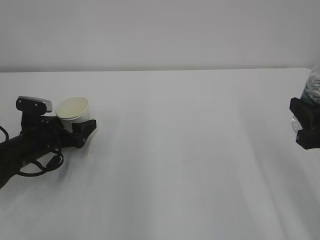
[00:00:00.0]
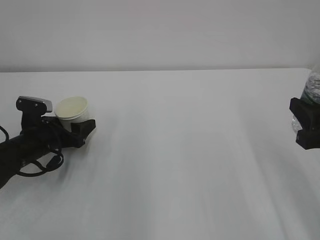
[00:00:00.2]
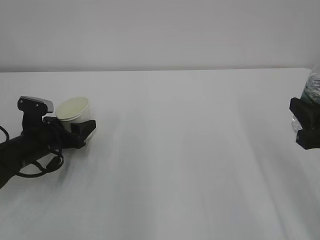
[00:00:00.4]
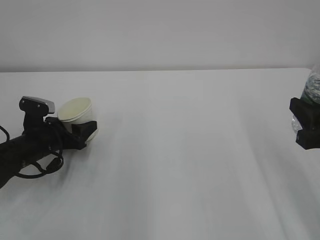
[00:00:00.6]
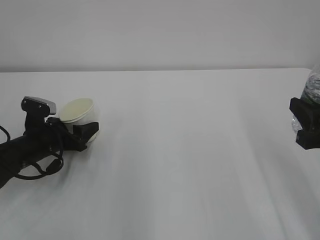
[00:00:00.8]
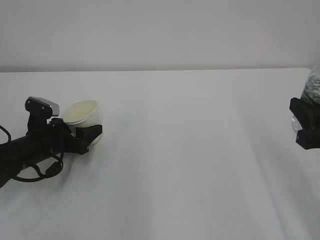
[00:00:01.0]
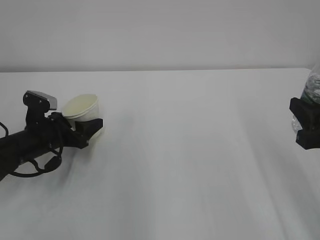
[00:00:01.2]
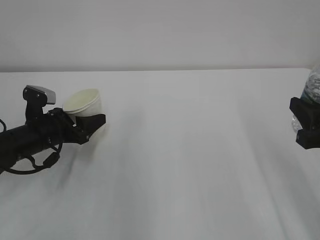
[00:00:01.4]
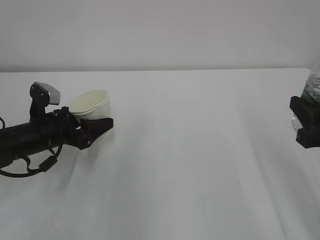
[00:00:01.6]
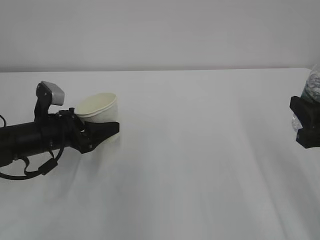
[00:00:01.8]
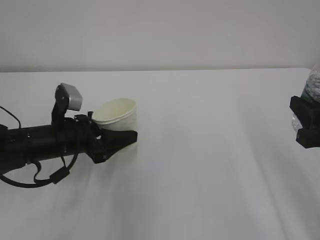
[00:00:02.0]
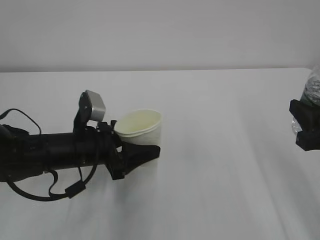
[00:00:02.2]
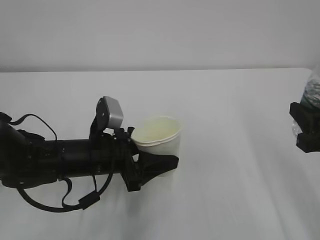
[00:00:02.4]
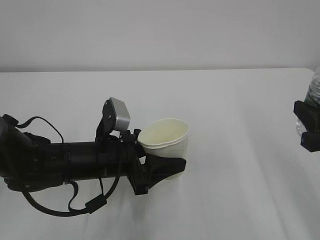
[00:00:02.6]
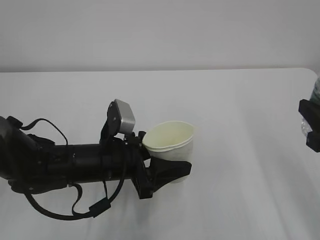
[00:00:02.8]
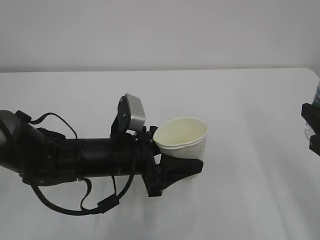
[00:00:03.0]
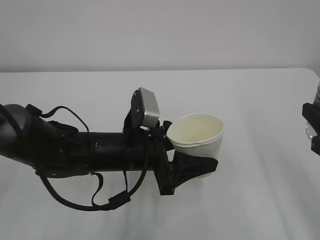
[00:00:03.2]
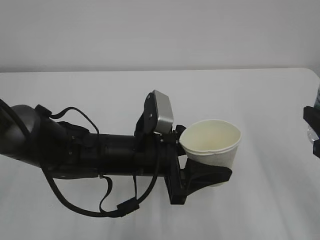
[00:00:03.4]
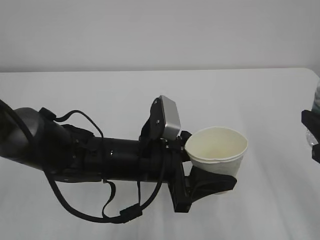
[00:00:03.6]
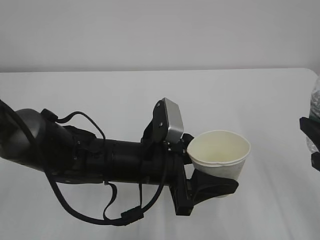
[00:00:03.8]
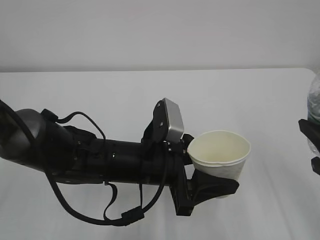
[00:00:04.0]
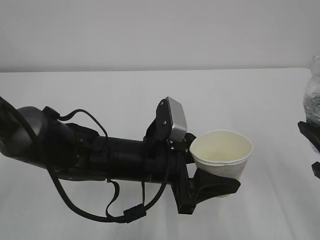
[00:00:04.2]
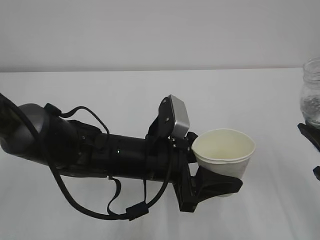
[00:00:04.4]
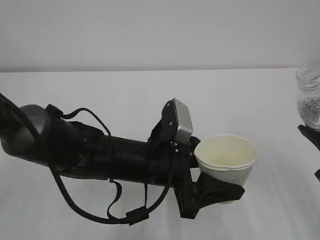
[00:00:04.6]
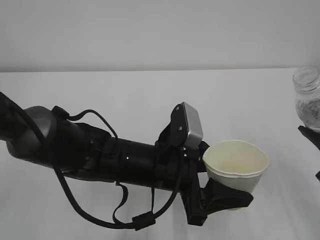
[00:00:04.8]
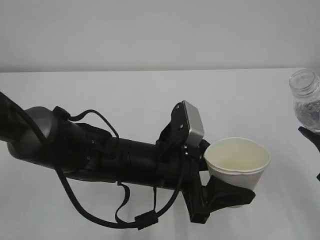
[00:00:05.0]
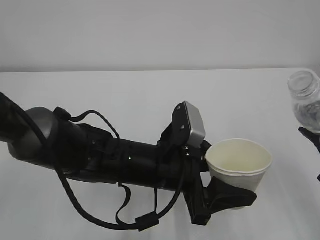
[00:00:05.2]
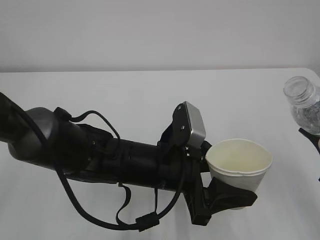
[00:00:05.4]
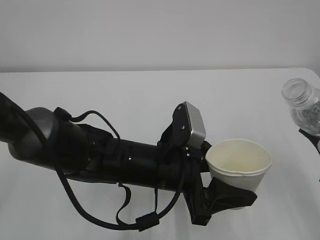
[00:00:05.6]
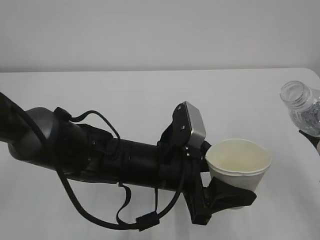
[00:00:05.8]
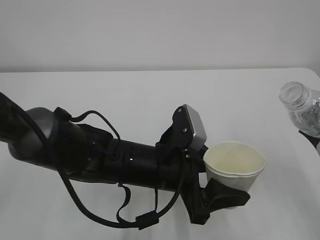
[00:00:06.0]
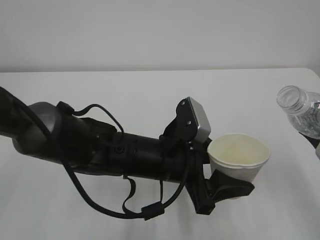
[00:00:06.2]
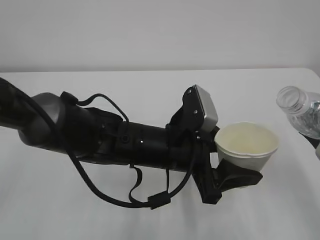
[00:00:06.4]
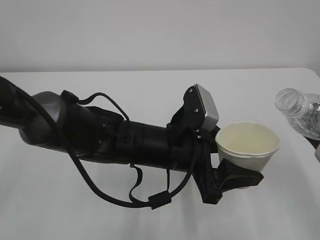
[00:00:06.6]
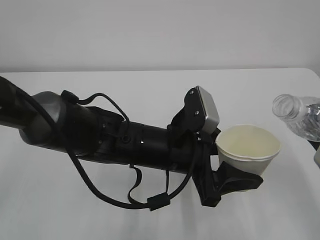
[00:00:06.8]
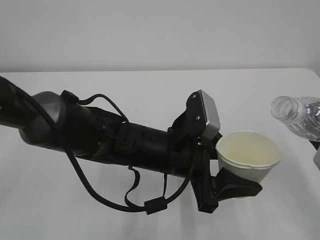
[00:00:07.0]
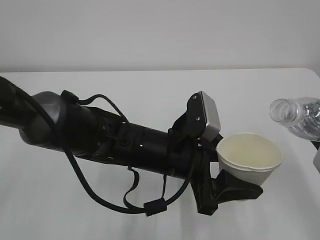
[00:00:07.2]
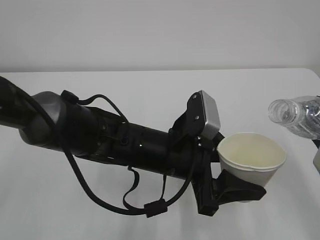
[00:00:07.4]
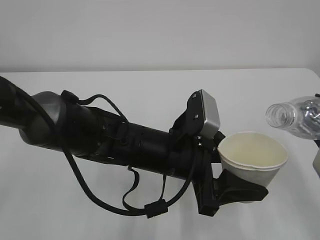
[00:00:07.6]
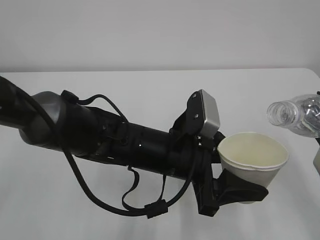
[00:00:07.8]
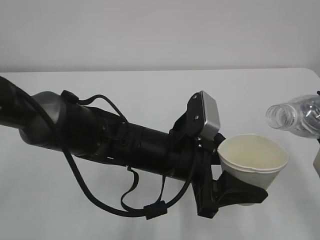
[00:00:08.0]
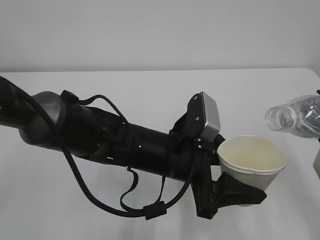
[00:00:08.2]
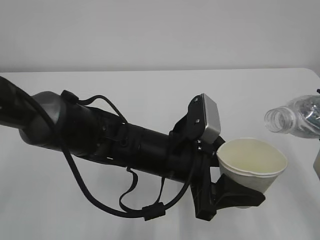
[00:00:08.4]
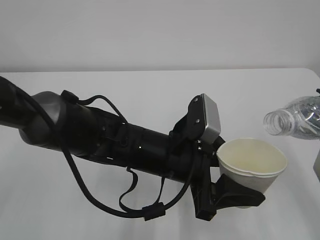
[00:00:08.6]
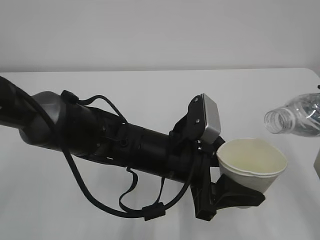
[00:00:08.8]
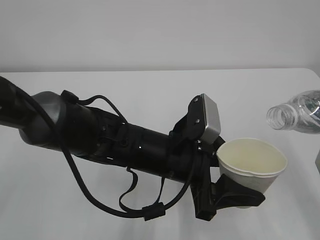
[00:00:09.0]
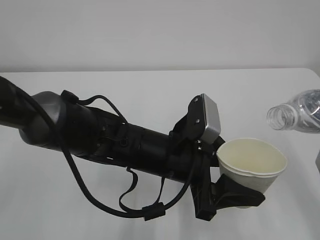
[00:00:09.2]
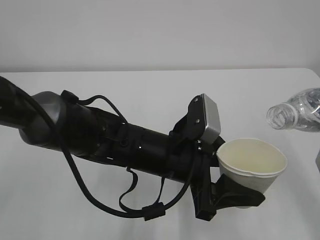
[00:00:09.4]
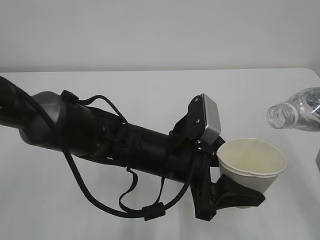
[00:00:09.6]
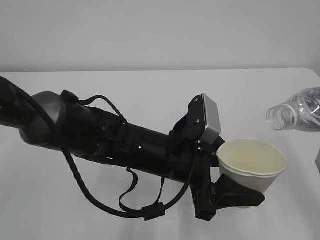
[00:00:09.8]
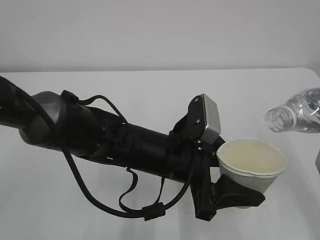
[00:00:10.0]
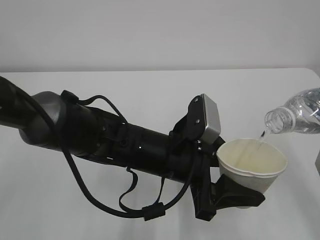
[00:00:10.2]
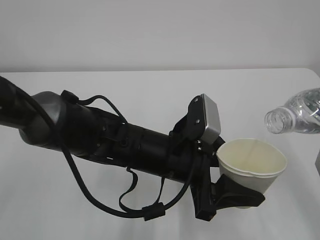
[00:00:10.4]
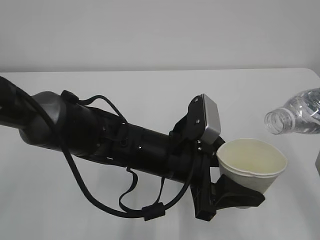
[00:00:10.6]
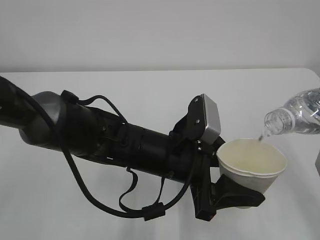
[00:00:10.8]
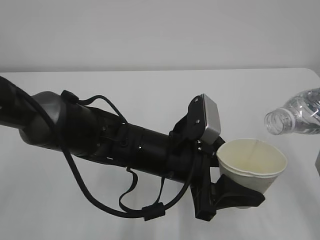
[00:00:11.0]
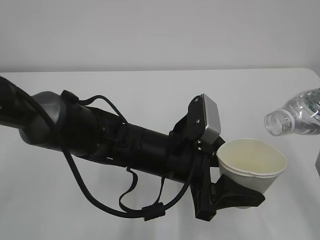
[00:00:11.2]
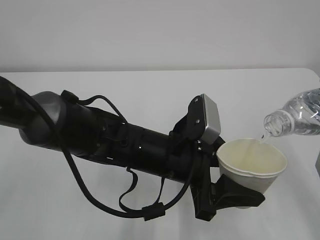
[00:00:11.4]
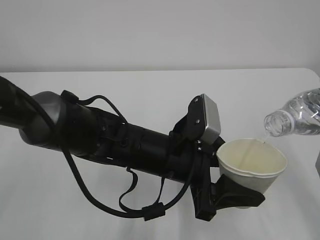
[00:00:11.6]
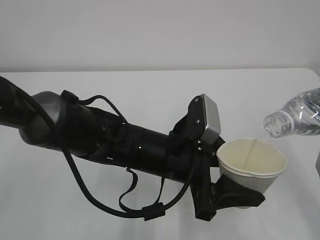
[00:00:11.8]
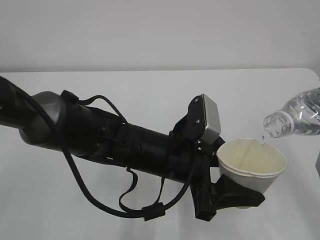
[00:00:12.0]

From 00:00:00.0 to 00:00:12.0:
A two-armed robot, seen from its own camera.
From 00:00:00.0 to 00:00:01.6: The left gripper ends up roughly 5 cm from where it was, and closes up.
From 00:00:01.6 to 00:00:03.0: The left gripper travels to the right and backward by some 15 cm.
From 00:00:03.0 to 00:00:04.4: The left gripper heads to the right, covering roughly 5 cm.
From 00:00:04.4 to 00:00:06.0: The grippers stay close to where they were, moving slightly.
From 00:00:07.6 to 00:00:09.0: The grippers make only small movements.
From 00:00:10.4 to 00:00:12.0: Both grippers stay put.

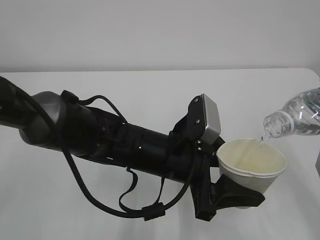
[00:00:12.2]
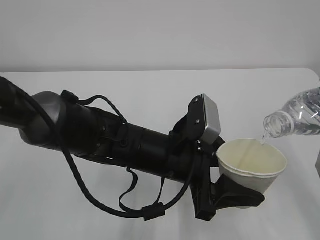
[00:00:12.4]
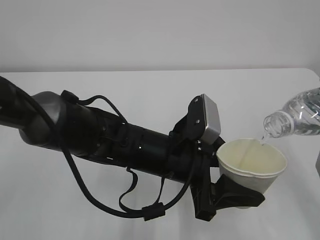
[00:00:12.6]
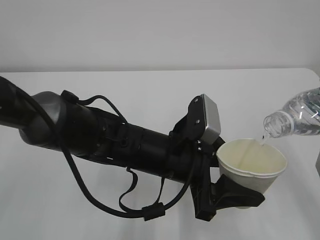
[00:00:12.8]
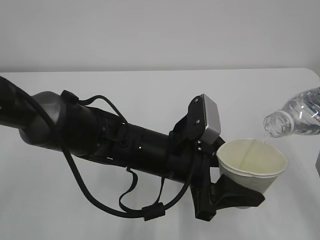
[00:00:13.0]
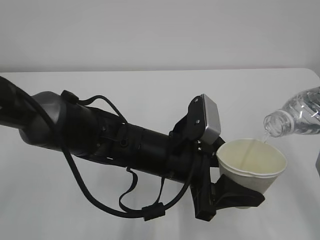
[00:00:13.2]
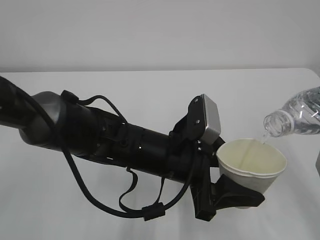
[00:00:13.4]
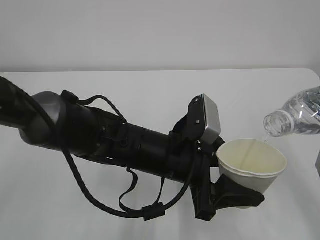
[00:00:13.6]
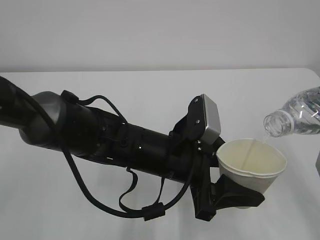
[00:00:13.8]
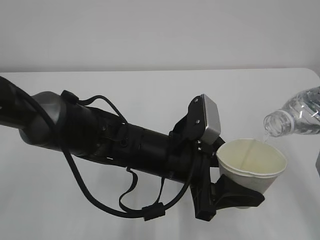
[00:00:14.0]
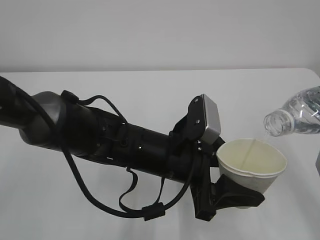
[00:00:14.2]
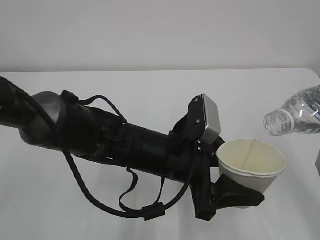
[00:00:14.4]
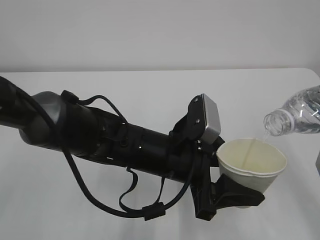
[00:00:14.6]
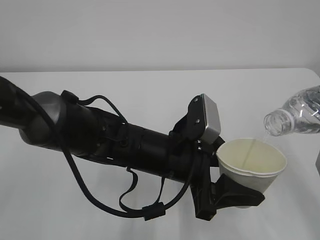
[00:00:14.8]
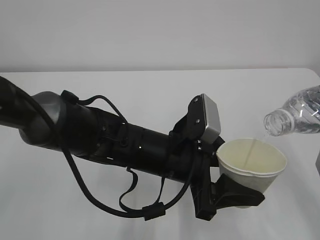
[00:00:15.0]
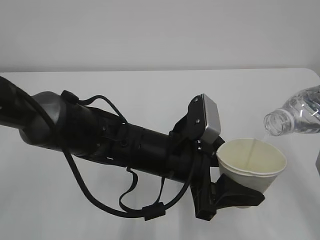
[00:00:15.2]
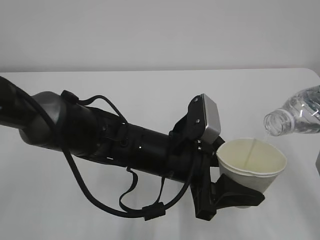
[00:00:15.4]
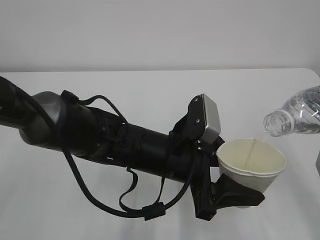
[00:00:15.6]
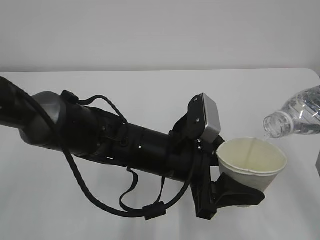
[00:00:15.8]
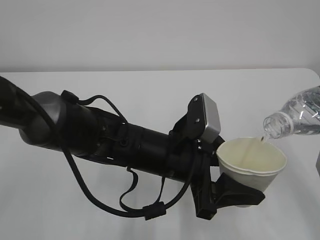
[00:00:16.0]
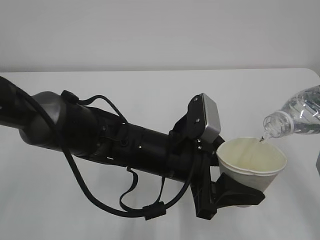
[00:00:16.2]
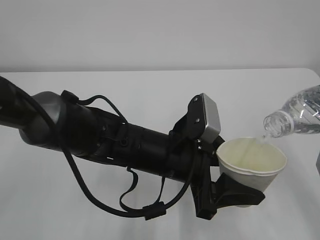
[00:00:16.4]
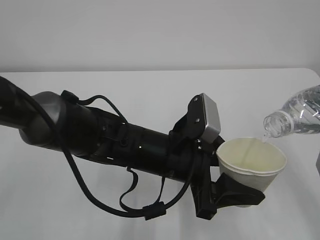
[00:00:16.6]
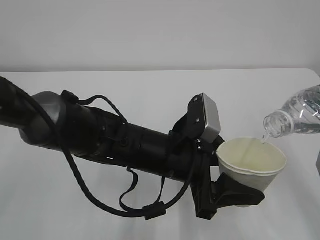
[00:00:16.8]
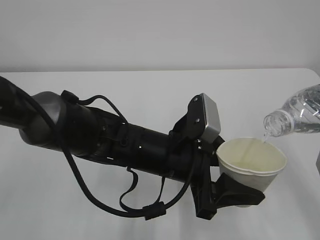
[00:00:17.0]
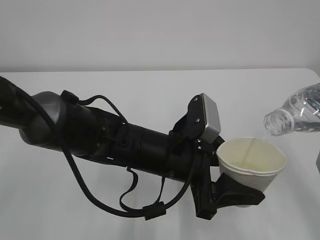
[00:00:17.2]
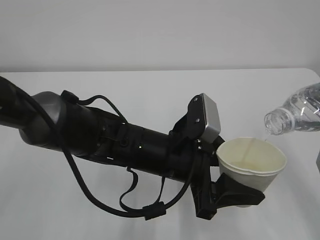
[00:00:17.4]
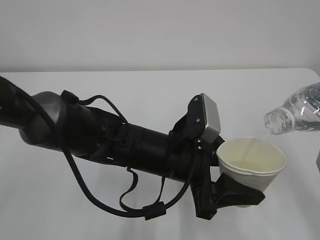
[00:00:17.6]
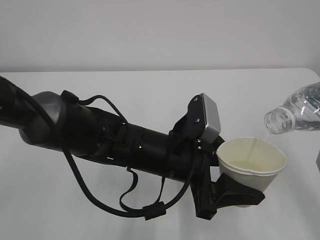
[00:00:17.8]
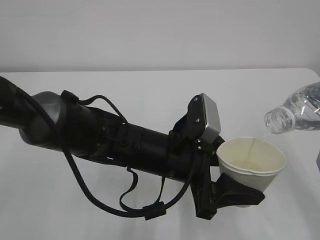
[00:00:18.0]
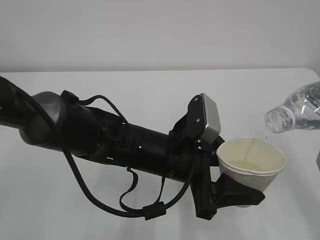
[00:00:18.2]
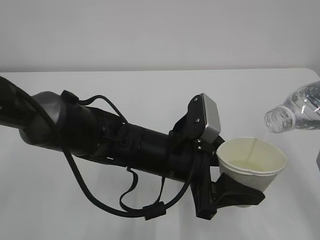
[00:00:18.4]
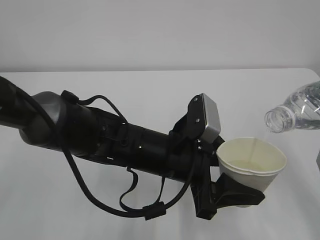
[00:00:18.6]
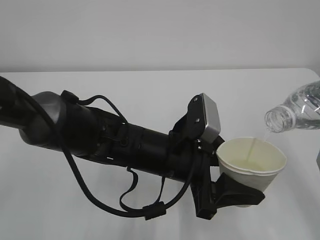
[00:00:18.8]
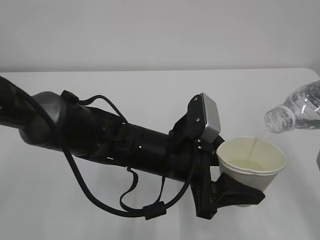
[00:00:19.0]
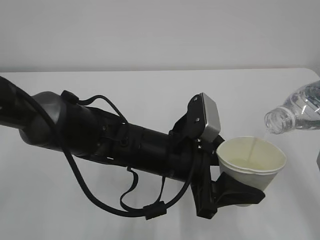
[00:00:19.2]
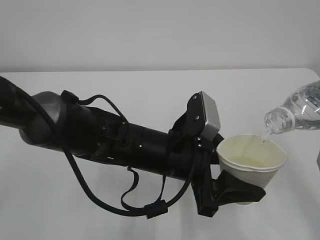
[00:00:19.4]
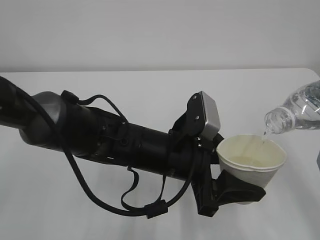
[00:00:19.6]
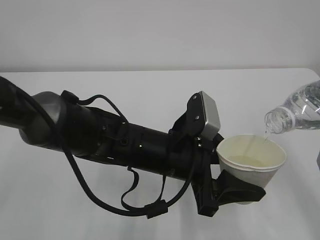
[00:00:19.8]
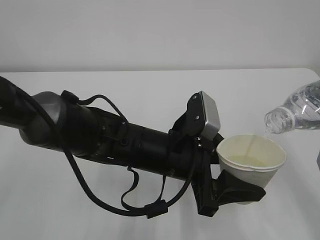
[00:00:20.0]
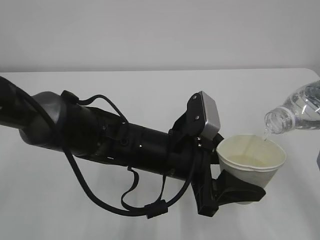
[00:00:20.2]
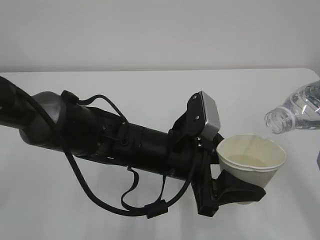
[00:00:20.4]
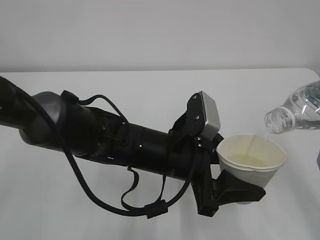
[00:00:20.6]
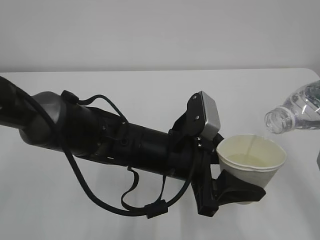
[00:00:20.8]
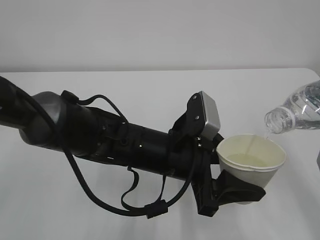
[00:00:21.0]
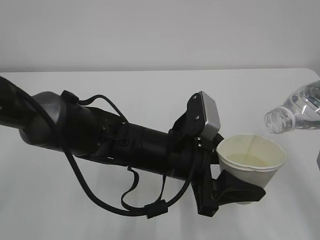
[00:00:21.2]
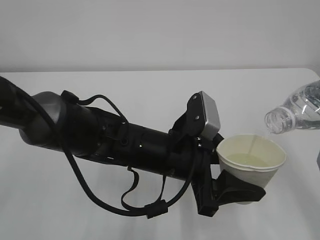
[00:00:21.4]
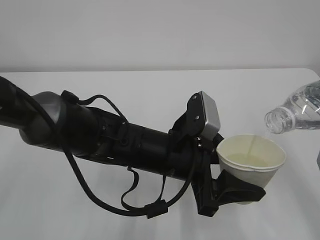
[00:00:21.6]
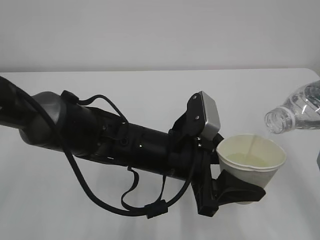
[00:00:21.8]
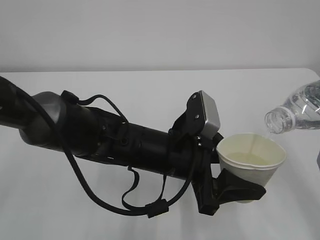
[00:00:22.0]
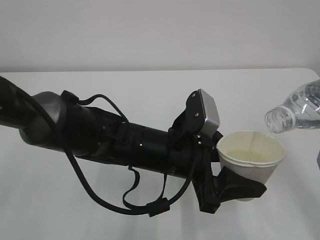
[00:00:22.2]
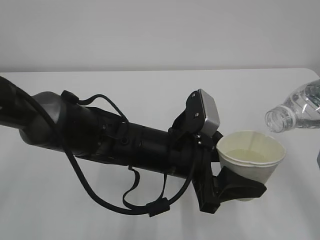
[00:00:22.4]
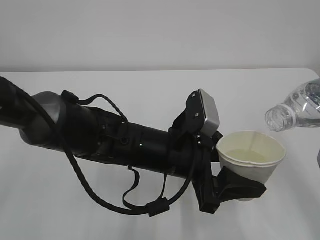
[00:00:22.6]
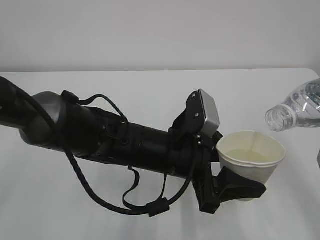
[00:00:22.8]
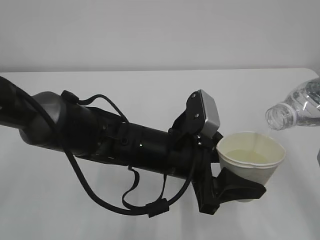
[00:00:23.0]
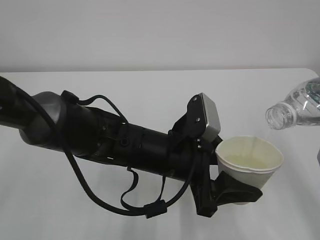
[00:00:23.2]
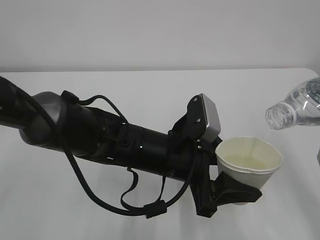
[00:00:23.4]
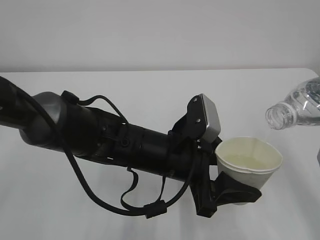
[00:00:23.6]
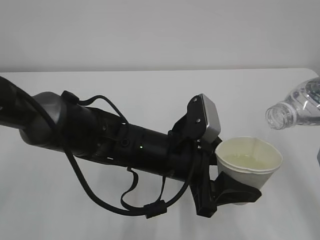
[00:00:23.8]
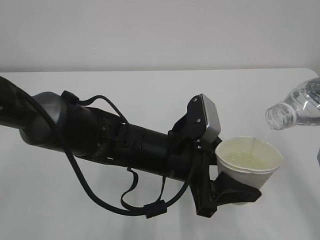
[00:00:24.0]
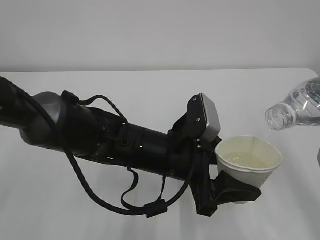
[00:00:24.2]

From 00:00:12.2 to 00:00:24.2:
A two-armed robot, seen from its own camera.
From 00:00:12.2 to 00:00:21.2: Both grippers stay put.
From 00:00:21.2 to 00:00:24.2: Both grippers stay about where they are.
